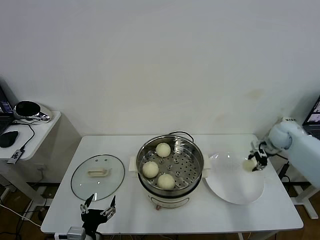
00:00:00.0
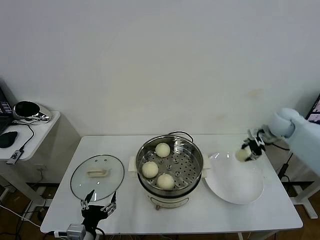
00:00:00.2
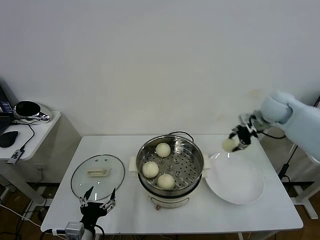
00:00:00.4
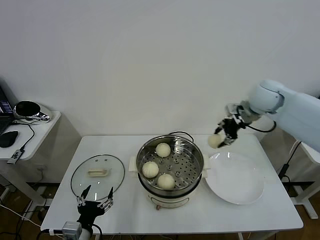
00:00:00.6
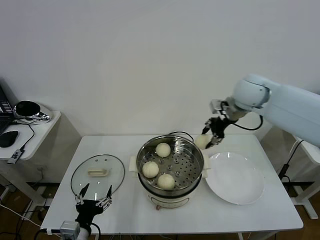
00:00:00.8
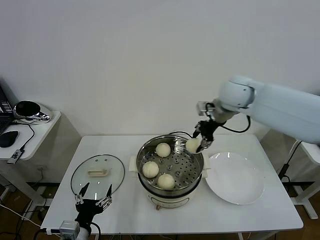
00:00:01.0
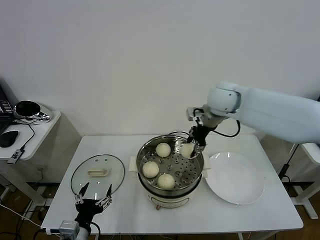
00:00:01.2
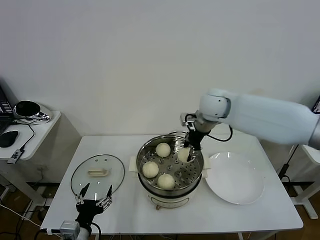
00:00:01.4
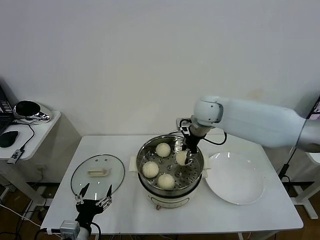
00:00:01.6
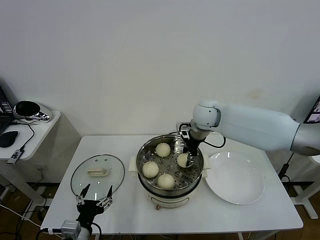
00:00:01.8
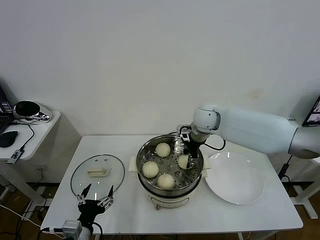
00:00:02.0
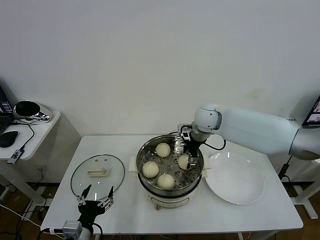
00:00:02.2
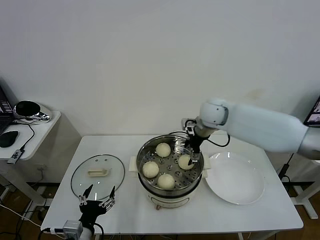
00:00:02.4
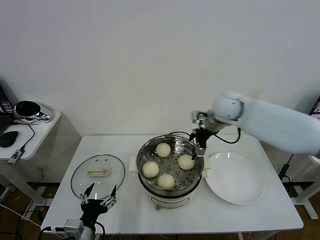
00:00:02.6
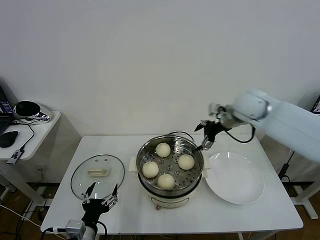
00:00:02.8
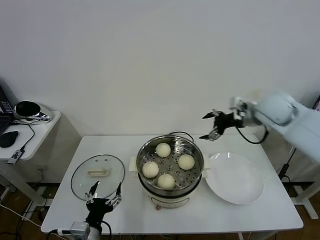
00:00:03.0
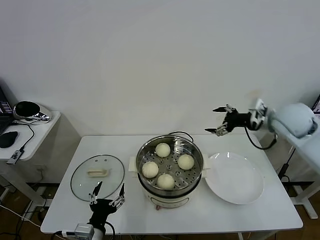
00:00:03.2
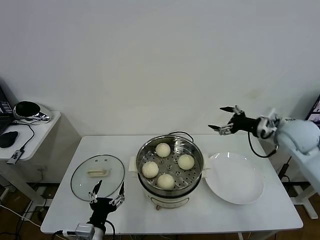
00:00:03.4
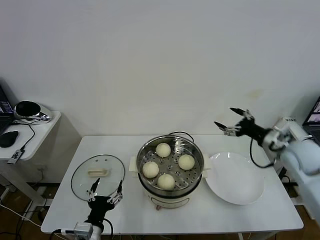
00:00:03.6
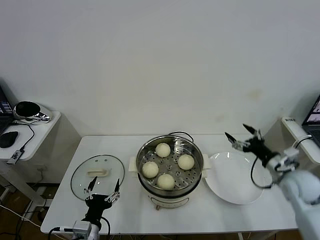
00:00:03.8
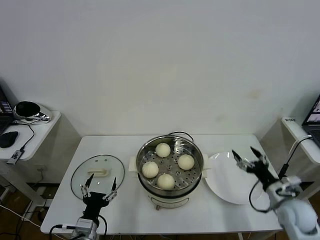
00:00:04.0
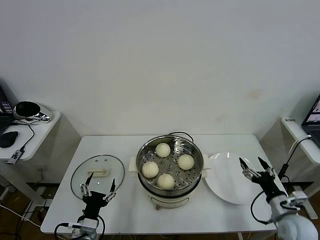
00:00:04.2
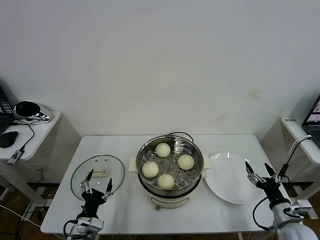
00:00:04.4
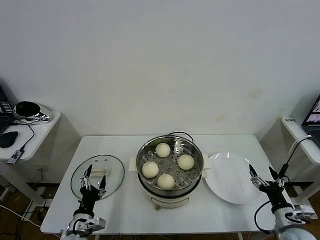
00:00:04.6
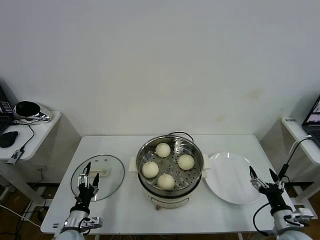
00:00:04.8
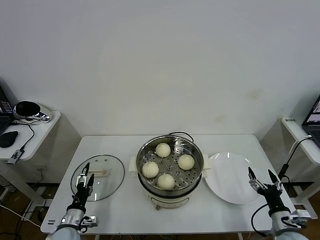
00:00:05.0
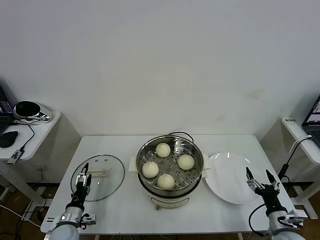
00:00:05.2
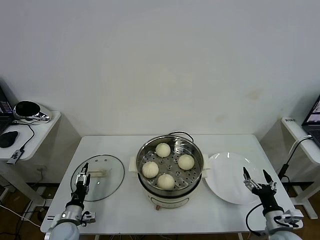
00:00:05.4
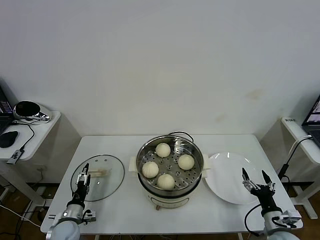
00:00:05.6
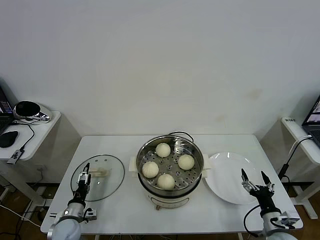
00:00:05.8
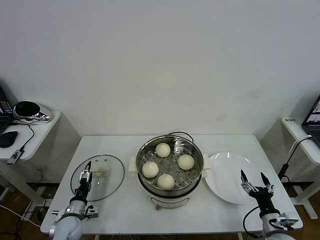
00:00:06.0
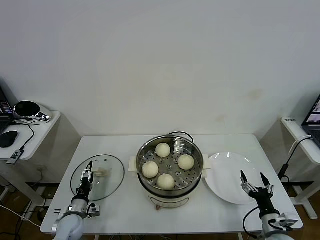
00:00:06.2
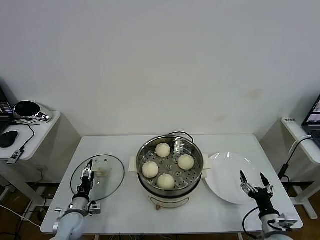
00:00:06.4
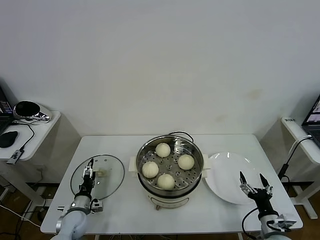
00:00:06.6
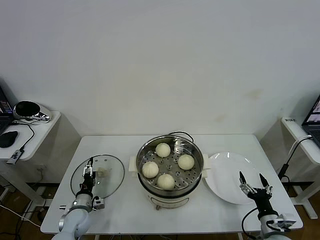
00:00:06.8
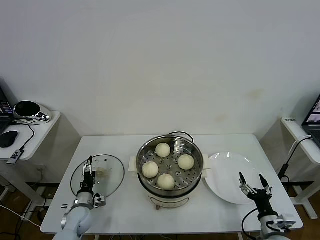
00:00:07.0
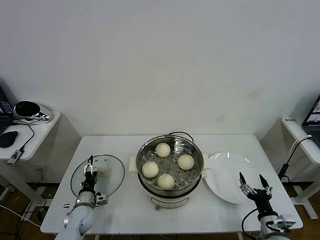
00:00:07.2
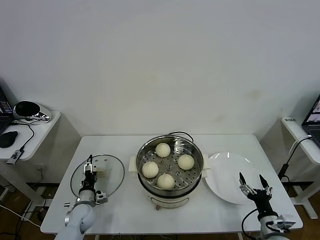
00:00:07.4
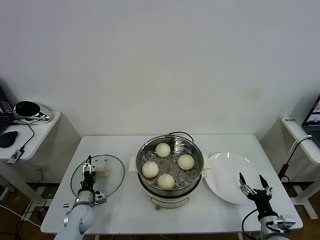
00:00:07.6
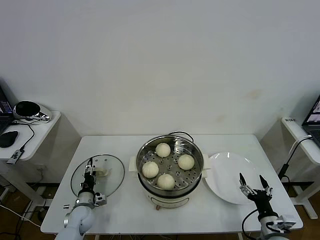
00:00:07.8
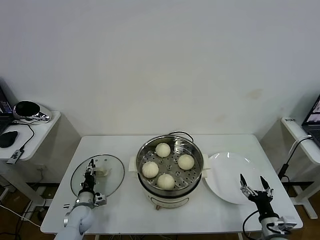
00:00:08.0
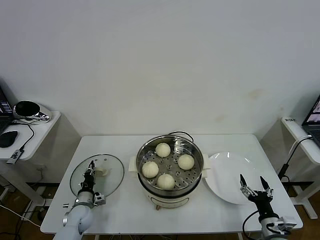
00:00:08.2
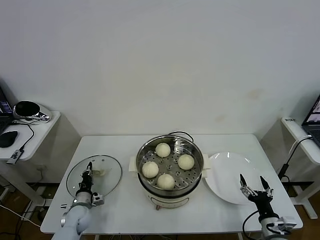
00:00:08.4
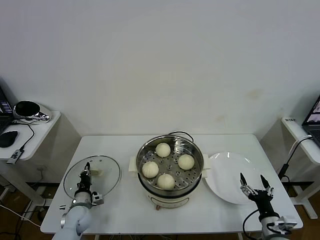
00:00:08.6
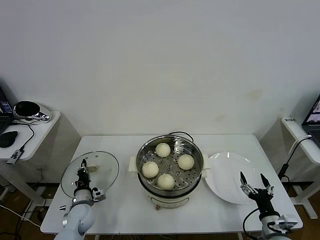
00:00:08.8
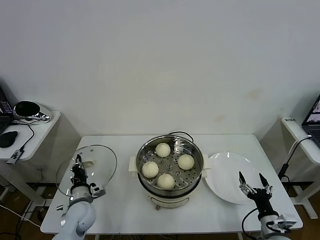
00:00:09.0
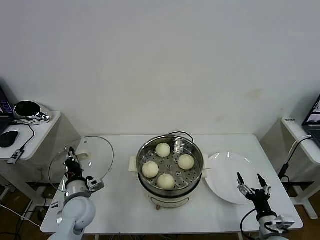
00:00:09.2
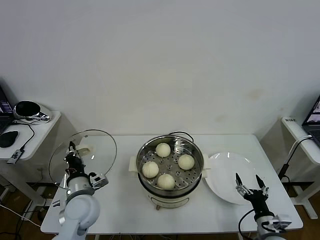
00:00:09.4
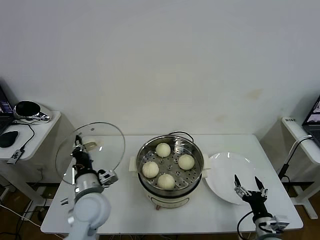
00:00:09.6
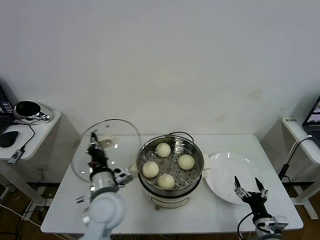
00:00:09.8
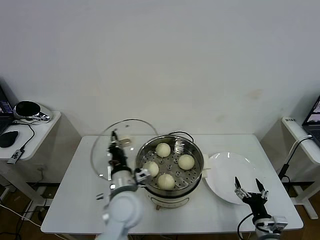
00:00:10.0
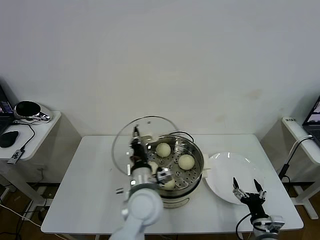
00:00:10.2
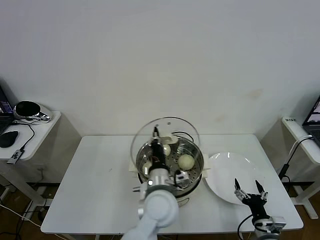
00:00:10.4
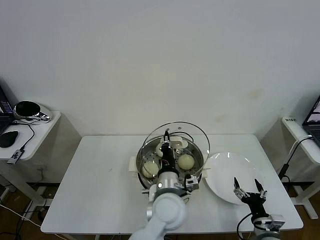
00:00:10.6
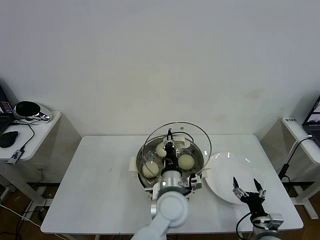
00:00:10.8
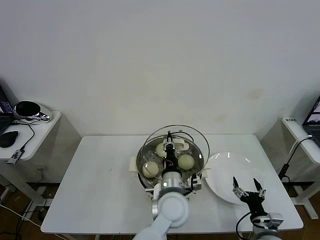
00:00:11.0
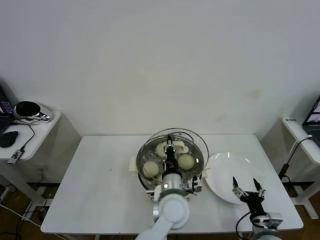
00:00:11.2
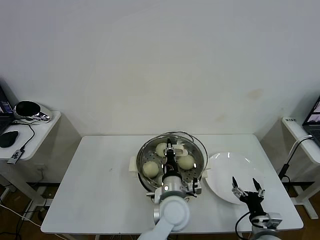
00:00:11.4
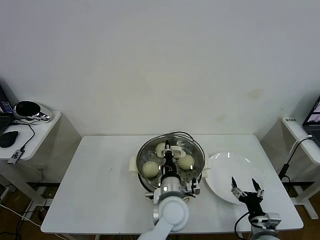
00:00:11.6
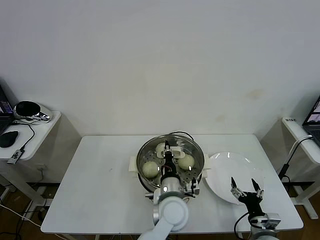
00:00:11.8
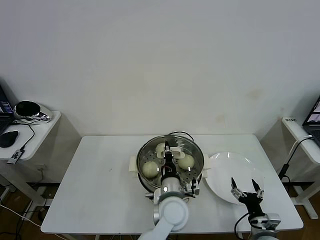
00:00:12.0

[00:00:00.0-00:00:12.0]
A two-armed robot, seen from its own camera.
Task of the whole recording: take steamed baozi put them in steamer then cover it.
Step, 00:00:00.0 to 00:00:02.4: Place the baozi on the steamer with right gripper.
Step, 00:00:02.6 to 00:00:08.4: Grasp the pot lid with left gripper.
00:00:00.0 to 00:00:01.6: The right gripper travels to the left by roughly 30 cm.
00:00:01.6 to 00:00:03.0: The right gripper heads to the right, covering some 15 cm, and opens up.
00:00:03.0 to 00:00:04.4: The right gripper goes some 40 cm downward and backward. The left gripper ends up roughly 5 cm from where it was.
00:00:04.4 to 00:00:06.0: The left gripper moves forward, to the left and downward, about 15 cm. Meanwhile the right gripper changes place by roughly 5 cm.
00:00:06.0 to 00:00:07.6: The left gripper moves forward, about 5 cm.
00:00:07.6 to 00:00:09.0: The left gripper heads upward, covering some 10 cm, and closes.
00:00:09.0 to 00:00:10.4: The left gripper moves to the right and upward, roughly 30 cm.
00:00:10.4 to 00:00:12.0: The left gripper ends up some 5 cm from where it was.

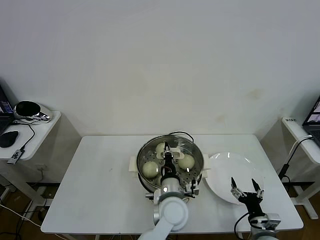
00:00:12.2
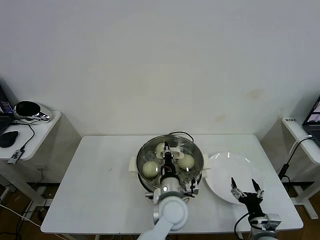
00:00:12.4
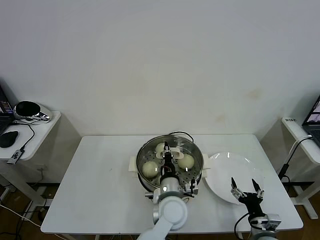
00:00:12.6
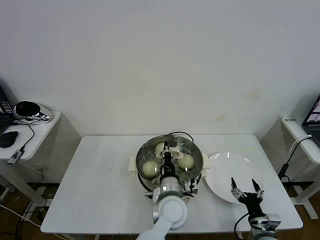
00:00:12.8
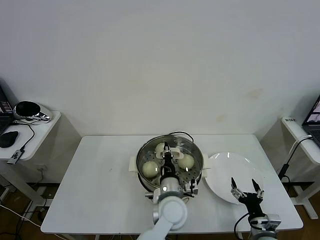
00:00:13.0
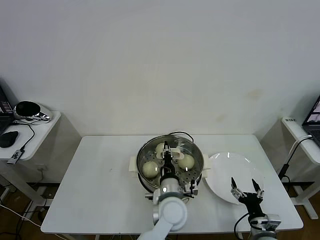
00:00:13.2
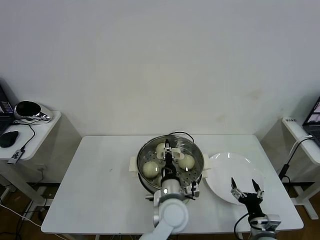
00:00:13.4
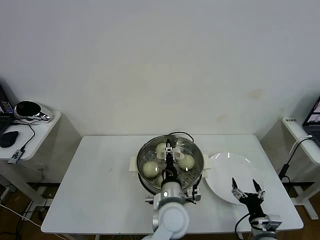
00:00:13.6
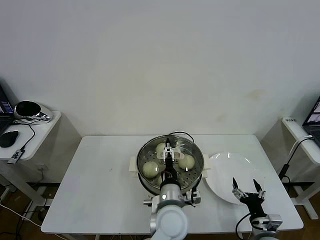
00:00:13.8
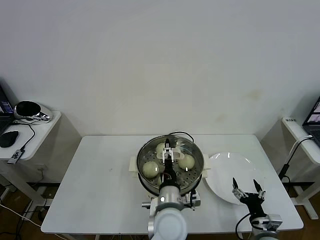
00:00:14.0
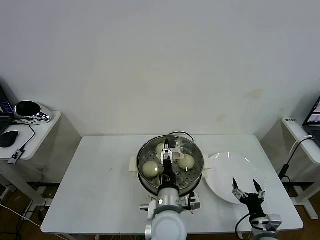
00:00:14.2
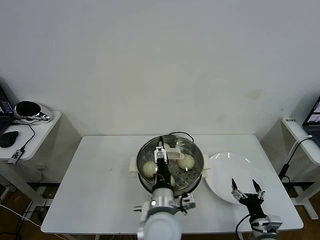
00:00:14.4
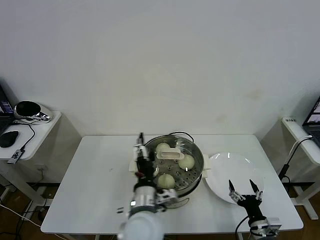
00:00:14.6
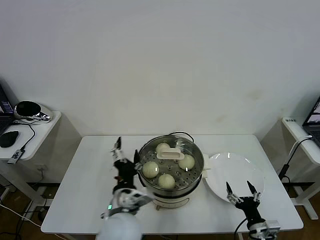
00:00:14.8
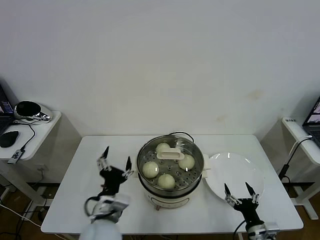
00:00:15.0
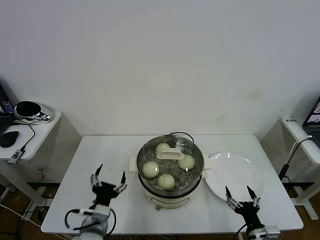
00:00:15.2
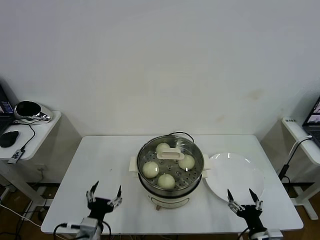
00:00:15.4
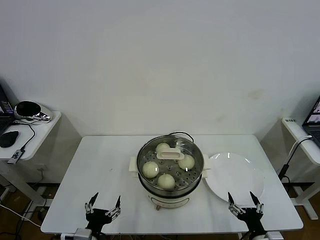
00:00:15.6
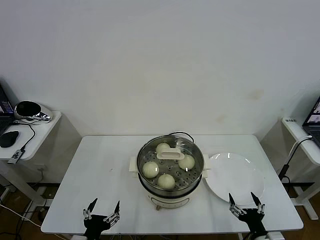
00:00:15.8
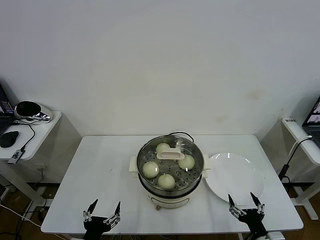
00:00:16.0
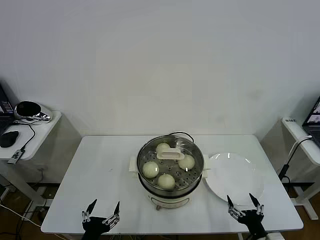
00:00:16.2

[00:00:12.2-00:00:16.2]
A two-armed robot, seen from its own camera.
Task of the whole recording: take steamed baozi put them in steamer then cover it.
00:00:12.2 to 00:00:13.6: The left gripper opens.
00:00:13.6 to 00:00:14.8: The left gripper is displaced to the left and upward by about 15 cm, and opens its fingers.
00:00:14.8 to 00:00:16.2: The left gripper heads to the left, backward and downward, covering approximately 20 cm. Meanwhile the right gripper shifts by some 5 cm.
